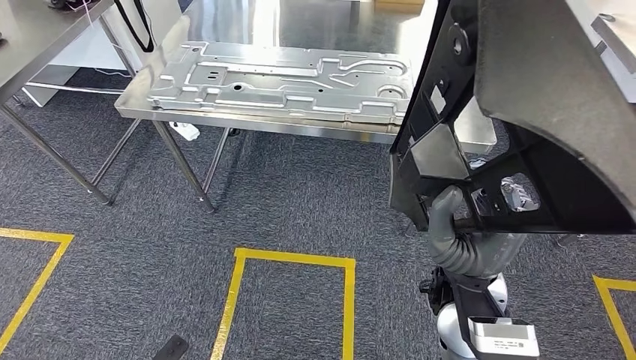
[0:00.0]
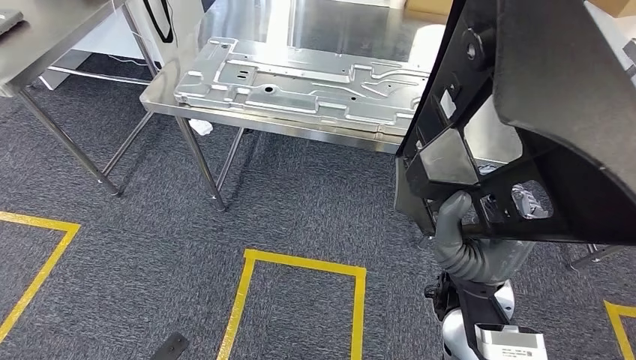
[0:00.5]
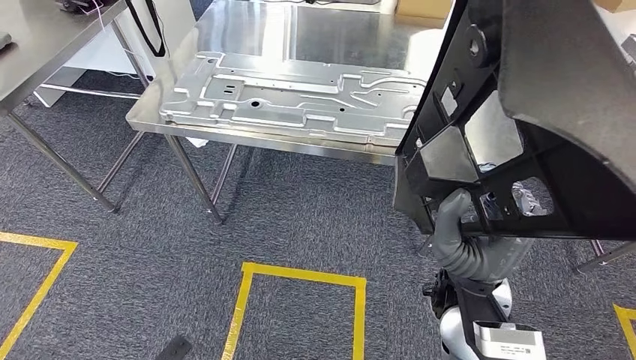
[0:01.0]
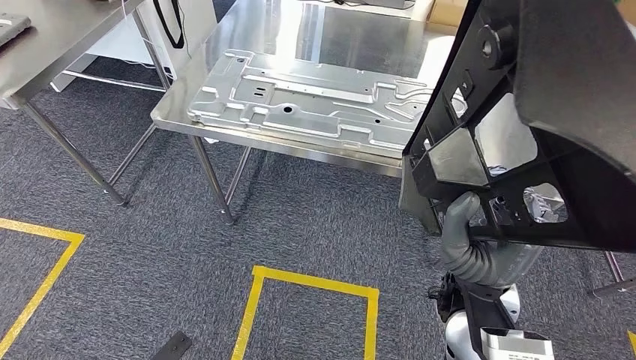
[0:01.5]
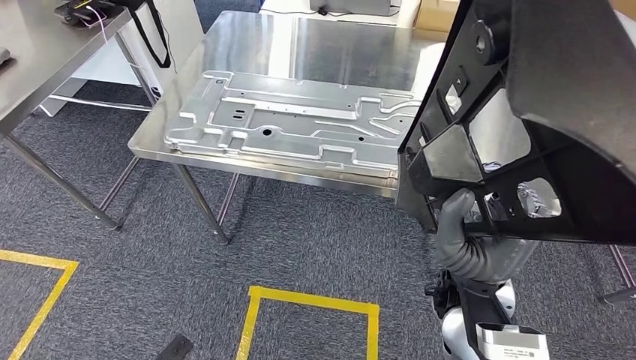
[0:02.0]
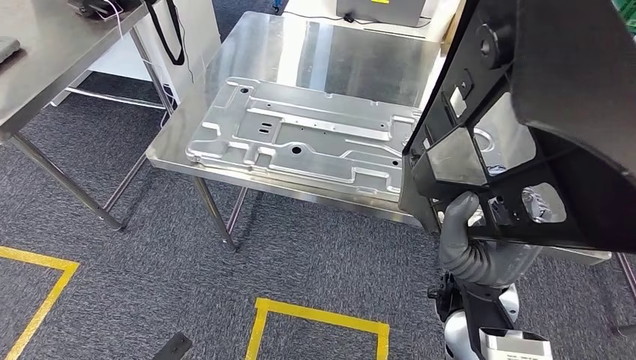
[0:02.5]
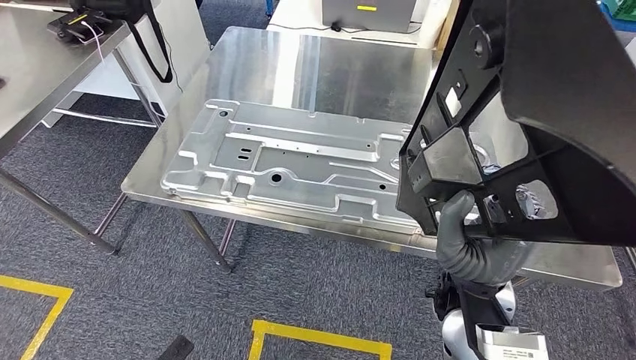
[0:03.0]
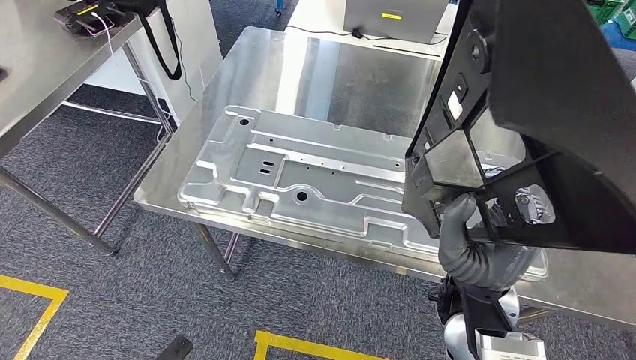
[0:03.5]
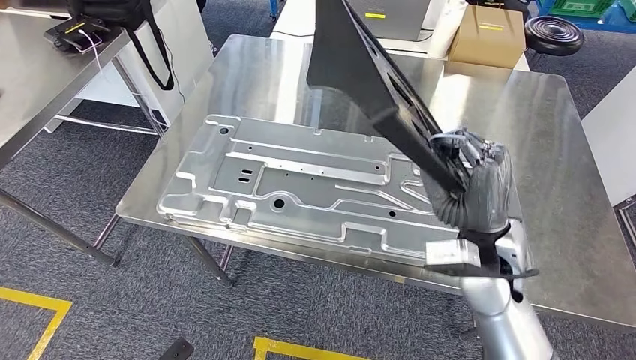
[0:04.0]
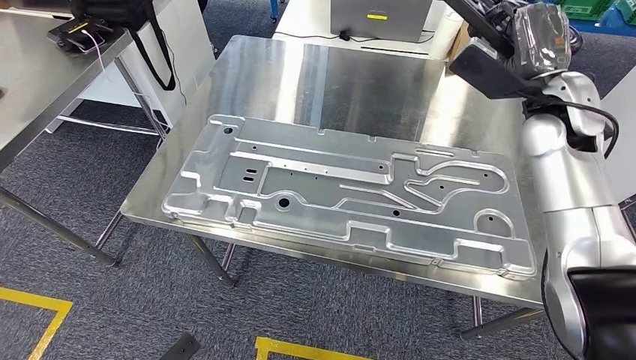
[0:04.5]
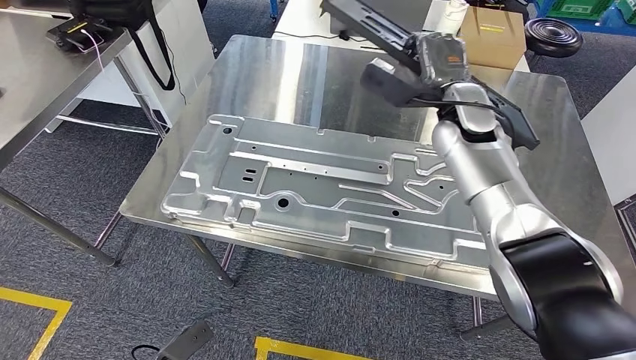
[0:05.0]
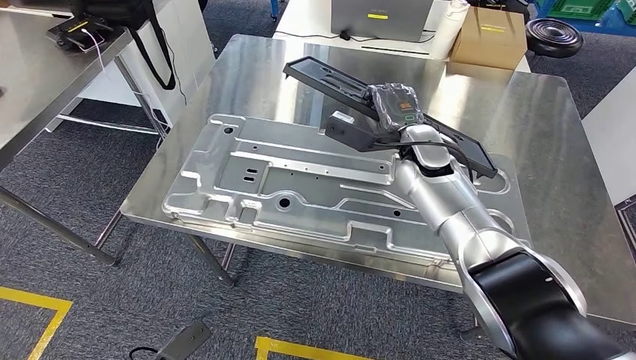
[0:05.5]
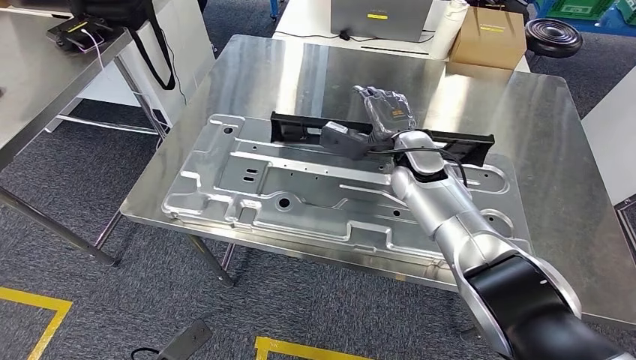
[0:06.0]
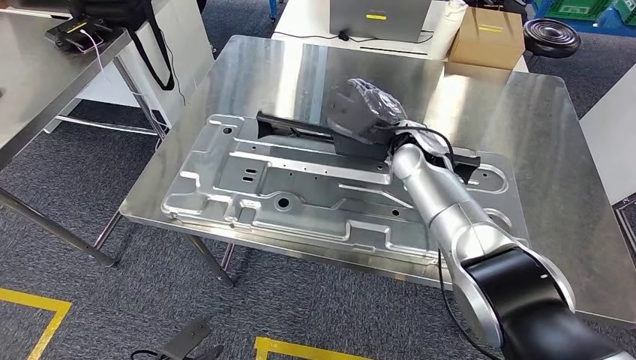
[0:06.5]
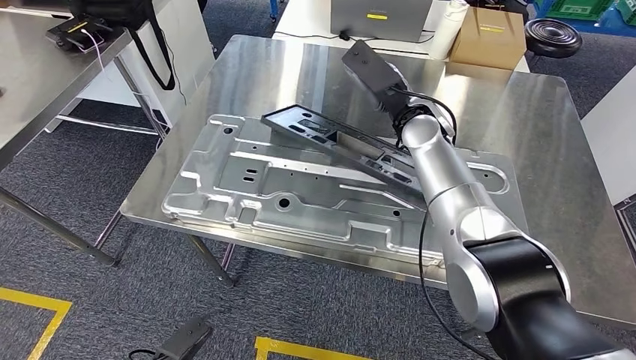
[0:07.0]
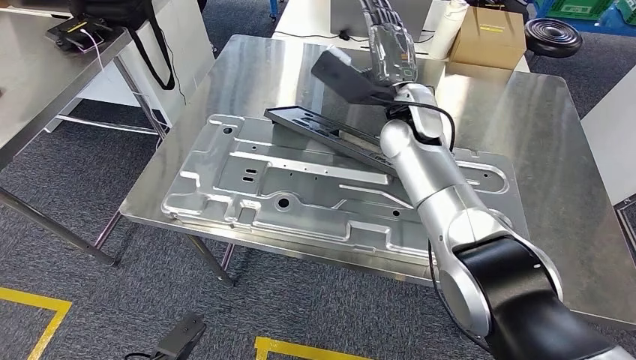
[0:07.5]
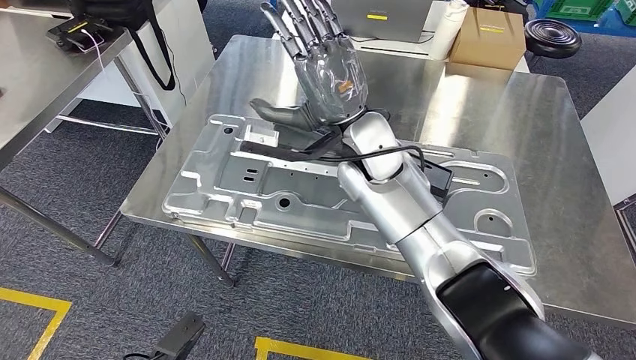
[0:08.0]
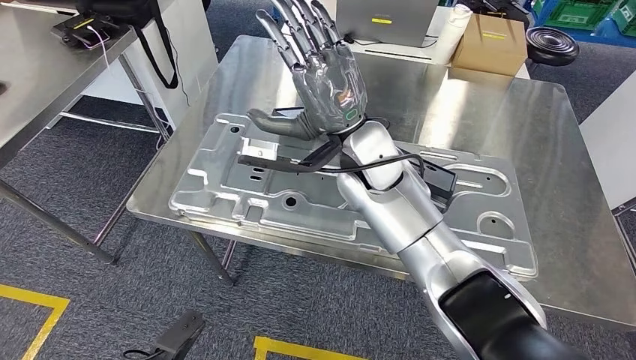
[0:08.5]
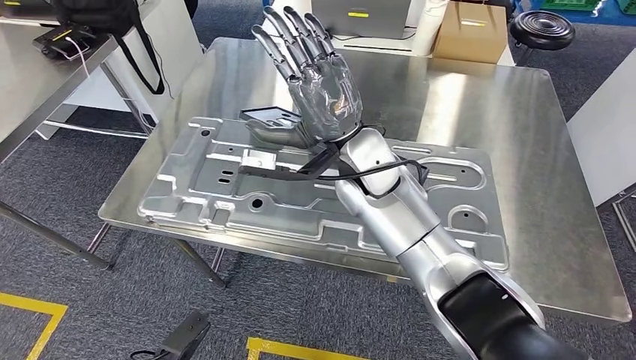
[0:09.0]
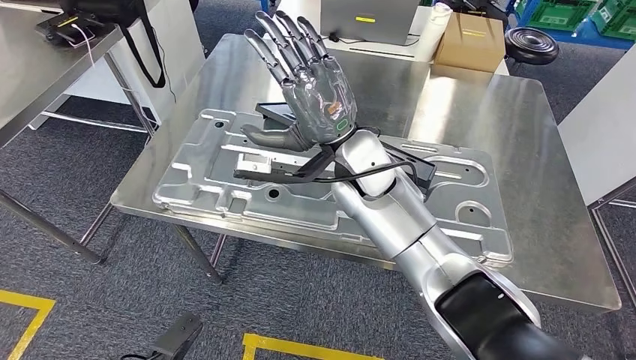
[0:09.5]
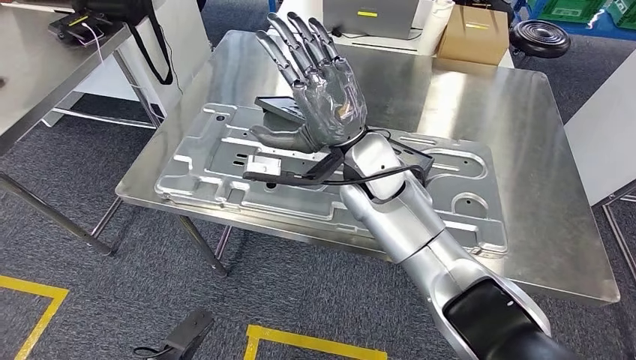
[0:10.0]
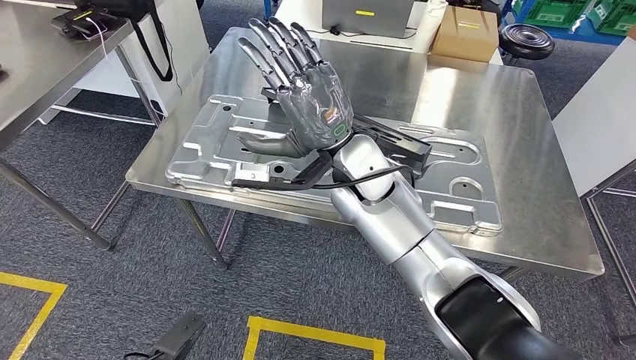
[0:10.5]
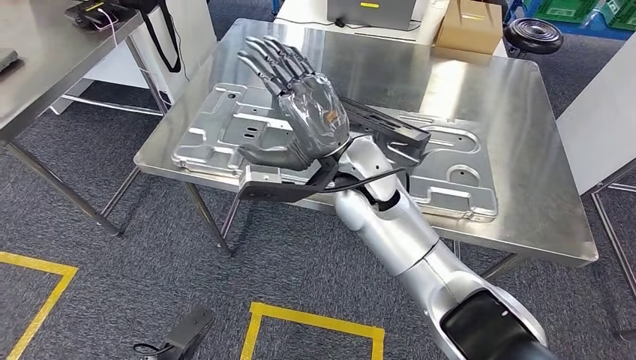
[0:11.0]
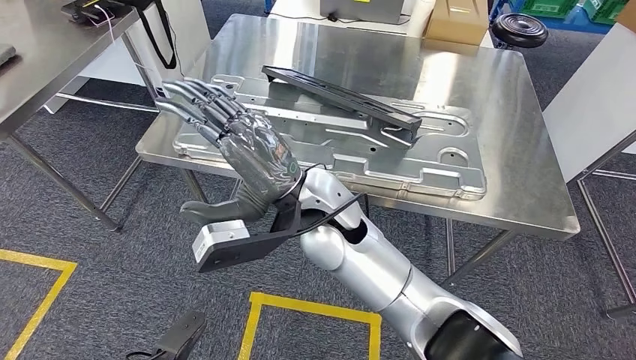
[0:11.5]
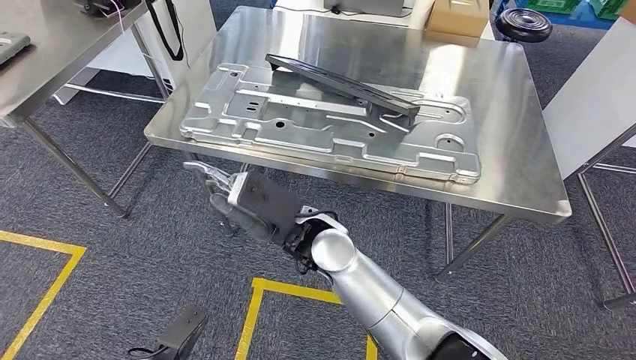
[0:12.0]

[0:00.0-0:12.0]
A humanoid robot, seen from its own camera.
Step, 0:00.0 to 0:07.5: Insert the large material into the corresponding slot on the workbench.
0:06.0 to 0:08.0: The right hand moves to the left and upward, some 15 cm.

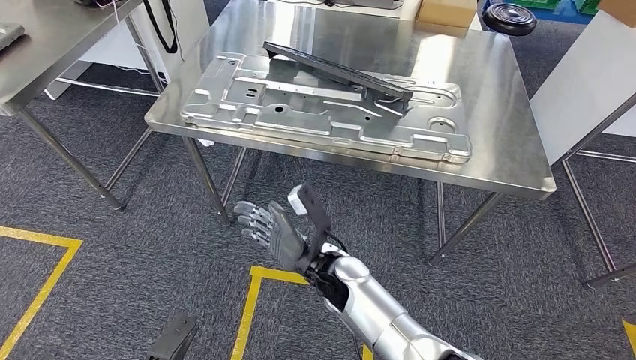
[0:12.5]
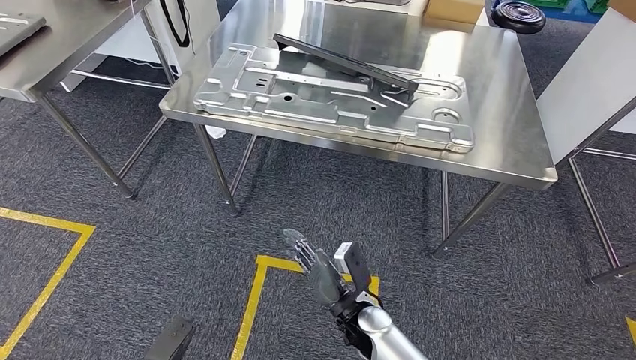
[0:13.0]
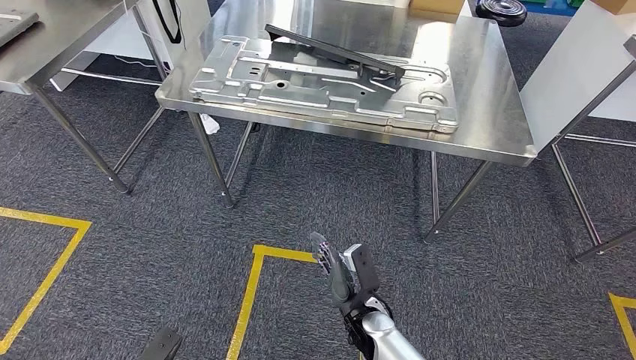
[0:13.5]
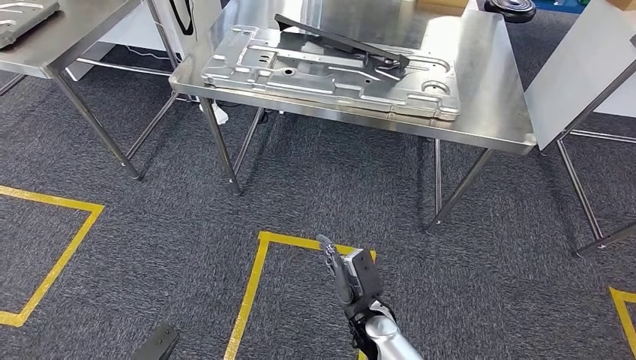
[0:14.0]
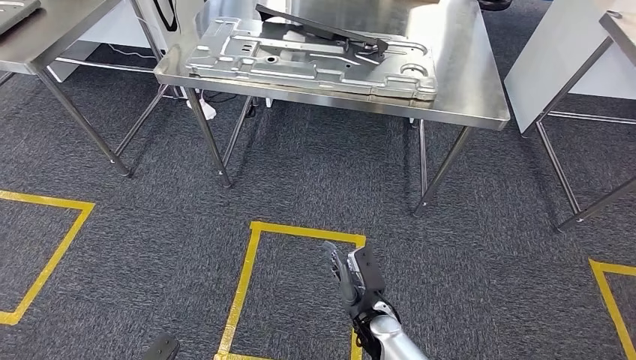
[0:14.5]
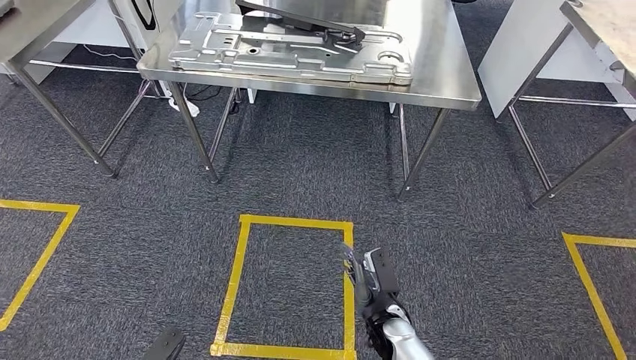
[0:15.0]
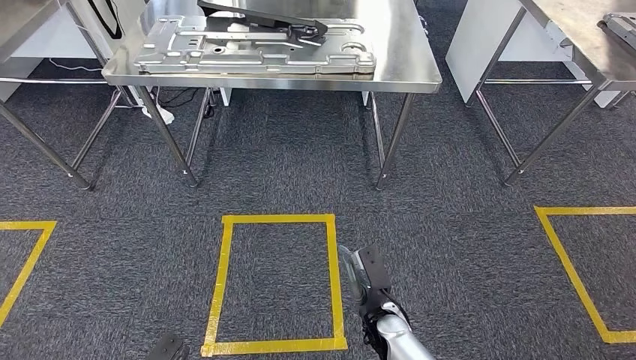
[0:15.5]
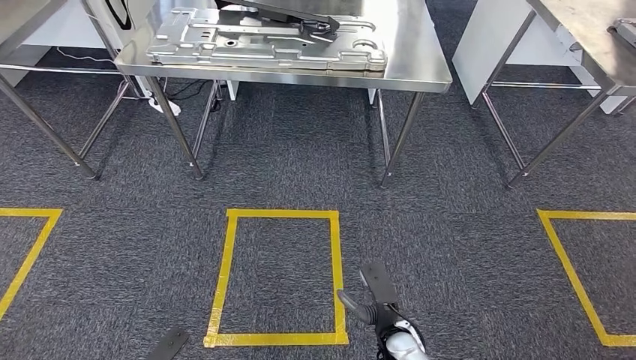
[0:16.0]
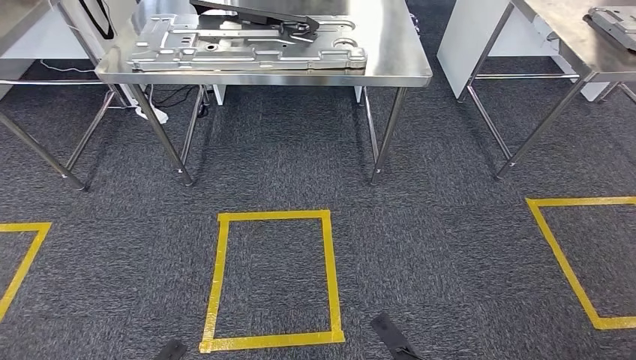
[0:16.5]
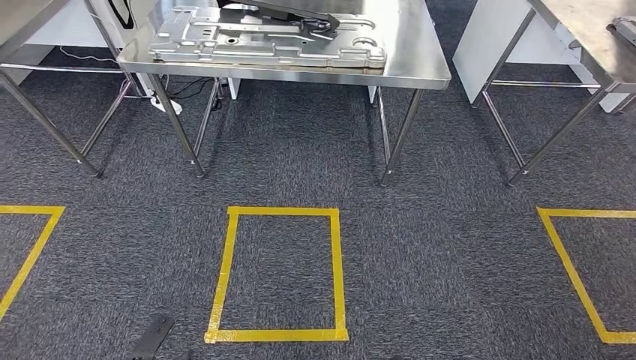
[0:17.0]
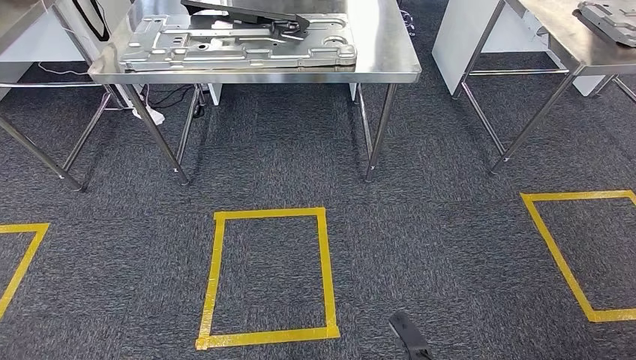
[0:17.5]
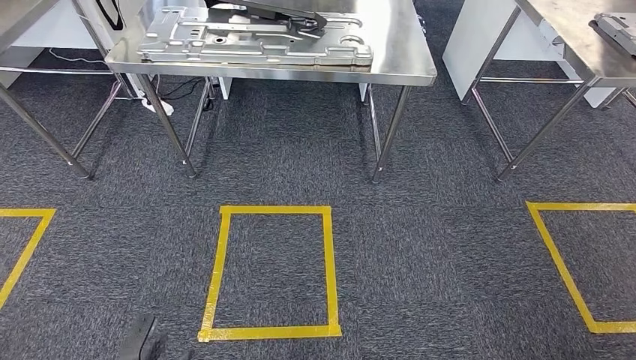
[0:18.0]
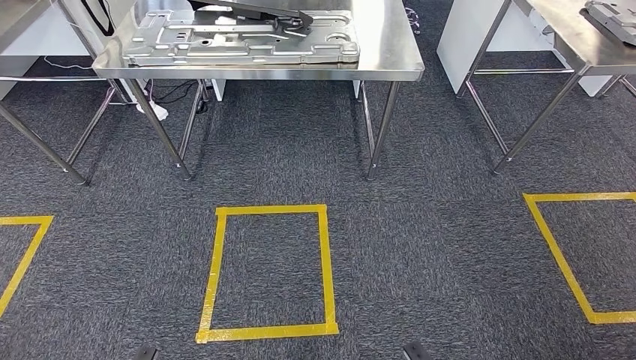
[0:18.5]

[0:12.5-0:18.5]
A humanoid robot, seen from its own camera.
Step, 0:12.5 to 0:18.5: Move to the initial position of the shelf.
0:16.5 to 0:18.5: The left hand goes forward and backward, some 10 cm each way, reversing 2 times. The right hand goes forward and backward, about 15 cm each way, reversing 3 times.
